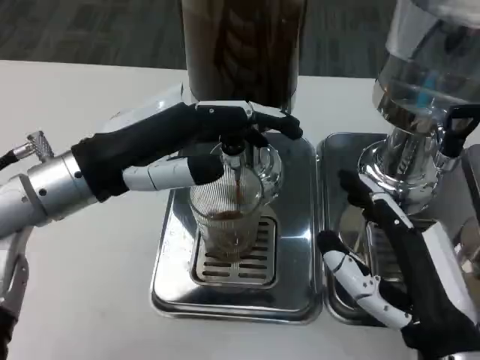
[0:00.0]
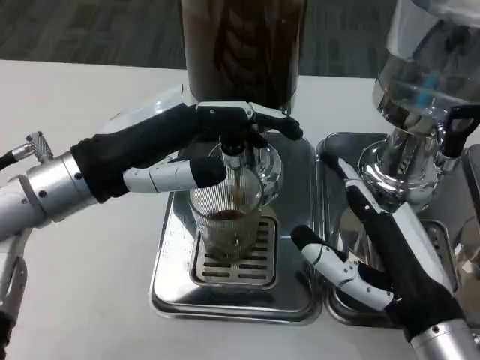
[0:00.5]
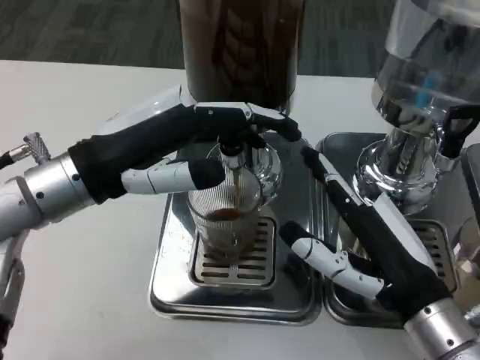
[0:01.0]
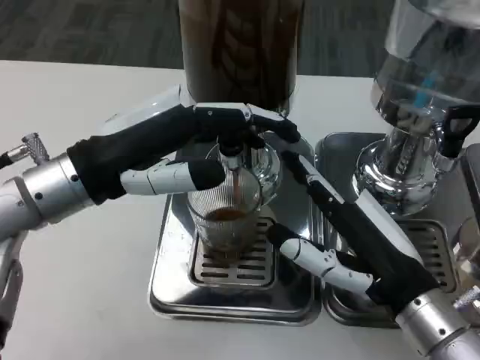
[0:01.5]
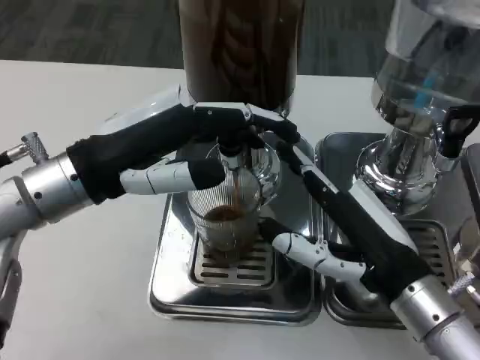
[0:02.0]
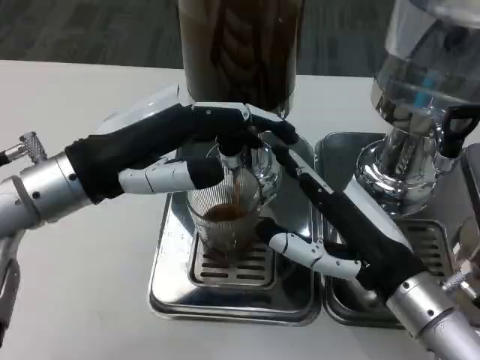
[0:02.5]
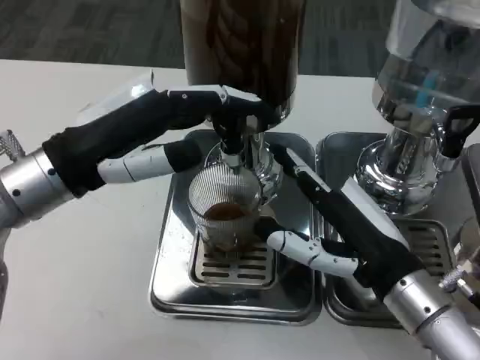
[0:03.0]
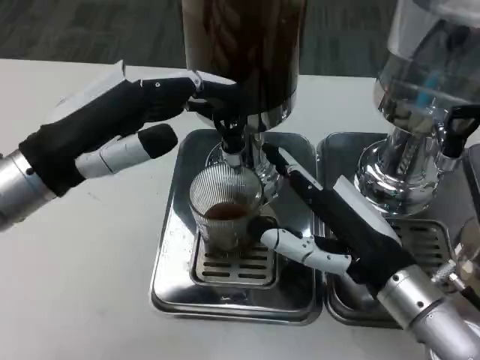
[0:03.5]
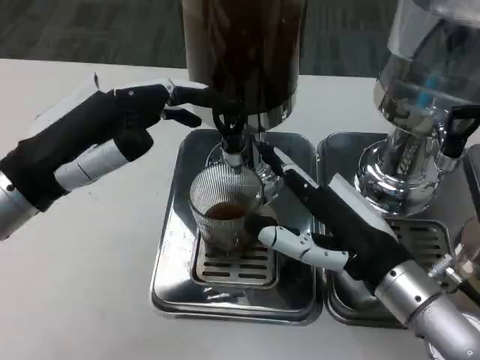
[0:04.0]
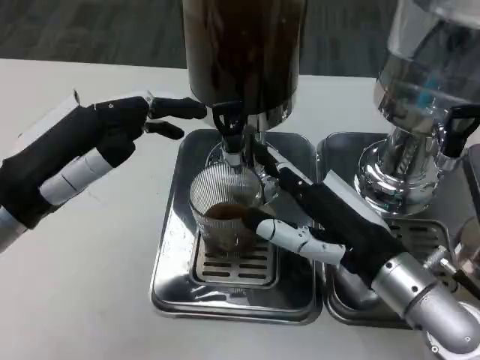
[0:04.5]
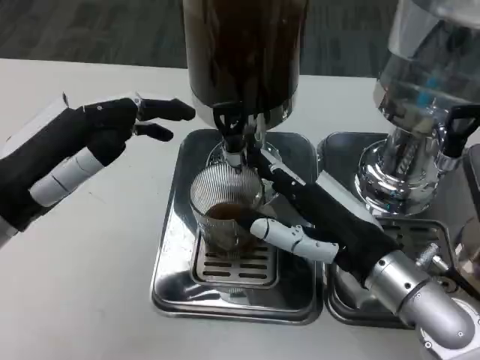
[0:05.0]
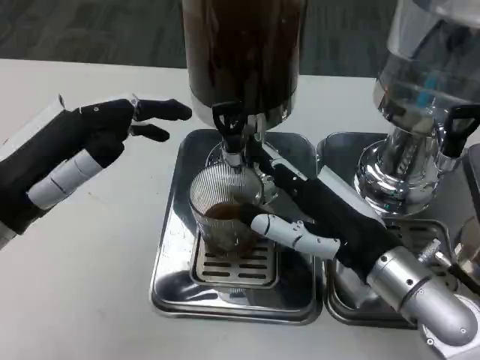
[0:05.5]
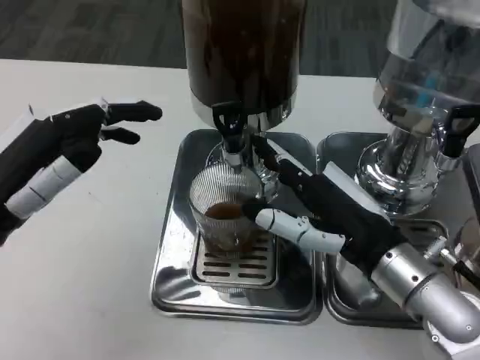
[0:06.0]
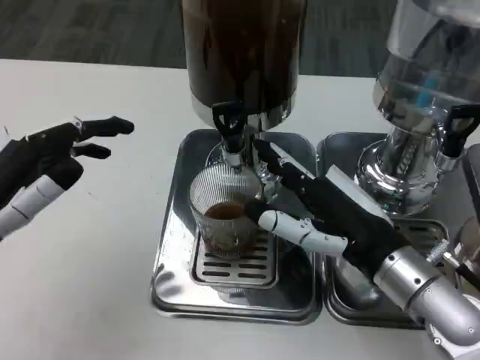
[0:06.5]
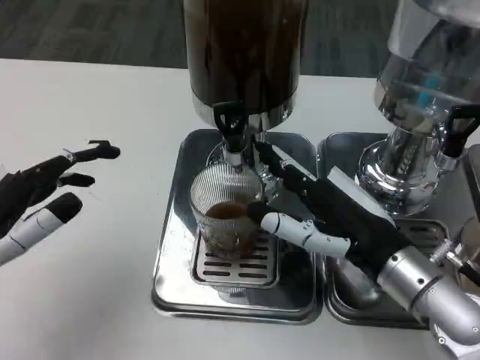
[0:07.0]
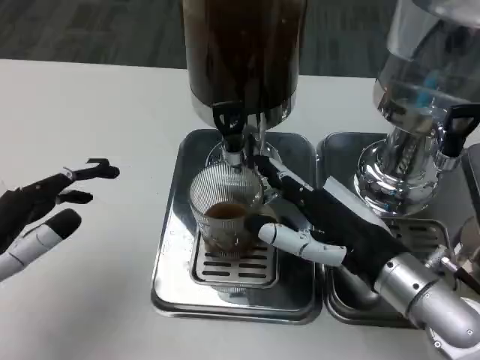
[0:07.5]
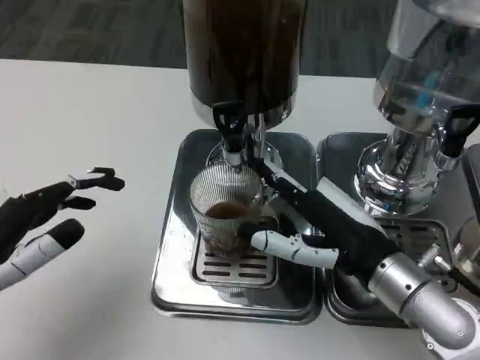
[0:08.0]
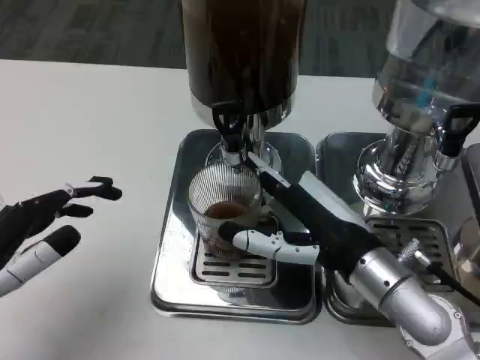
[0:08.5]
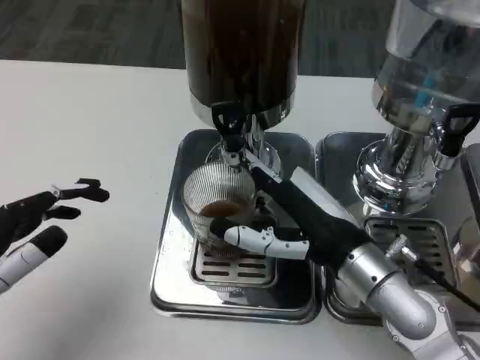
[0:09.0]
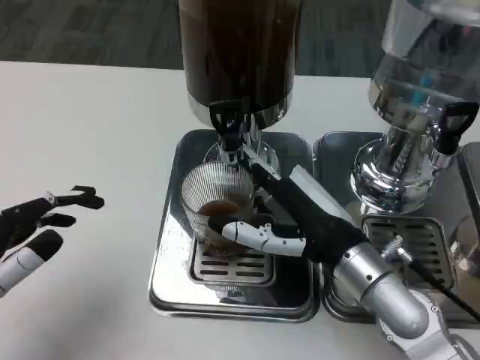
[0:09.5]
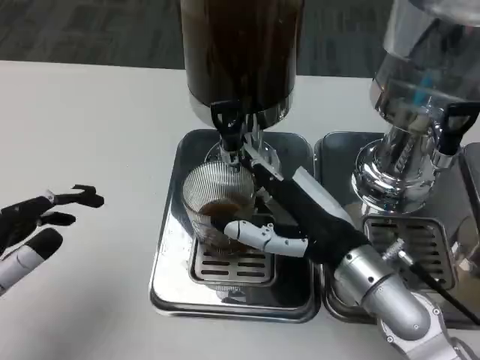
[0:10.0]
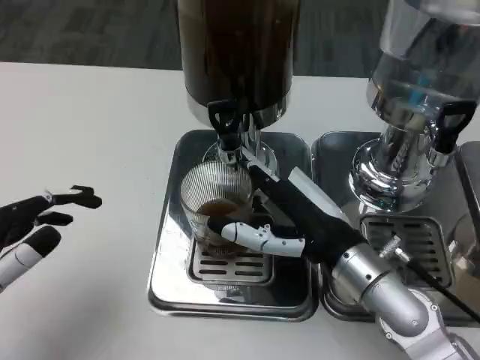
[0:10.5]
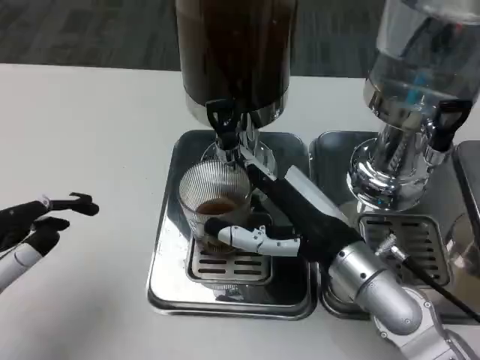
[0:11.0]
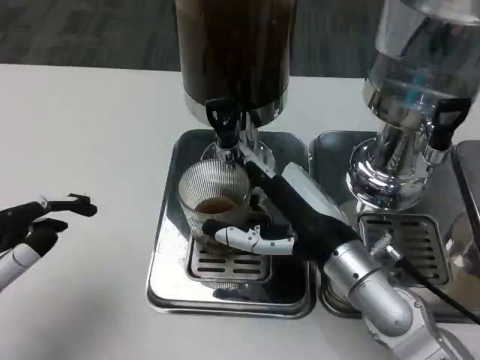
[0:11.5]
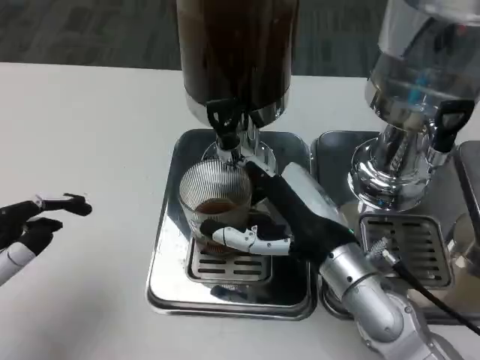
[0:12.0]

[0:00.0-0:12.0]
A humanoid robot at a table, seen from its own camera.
Task of the whole recording: Grasp the cup under the faucet to collect the drink, then remove the cup.
0:00.0 to 0:02.0: The right hand is displaced forward by approximately 5 cm.
0:04.0 to 0:06.0: The left hand ends up some 5 cm from where it was.
0:06.0 to 0:08.0: The left hand changes place by approximately 5 cm.

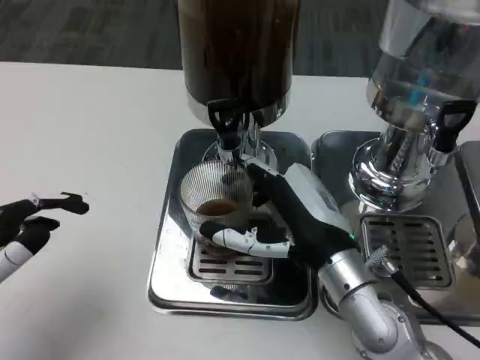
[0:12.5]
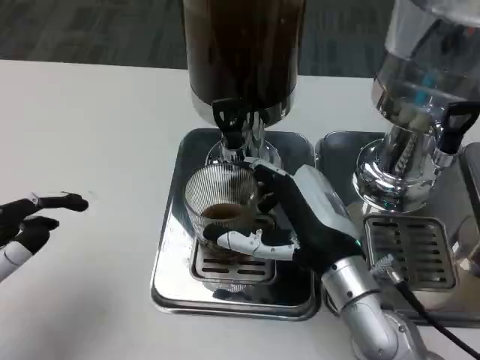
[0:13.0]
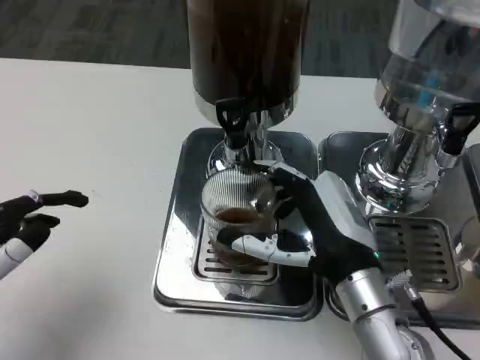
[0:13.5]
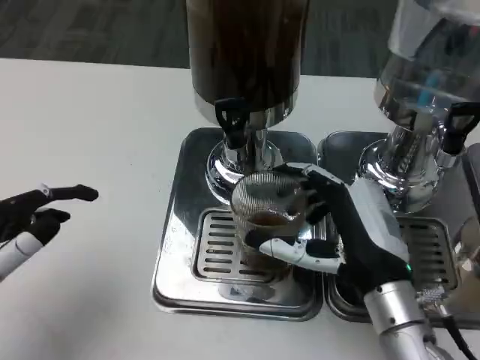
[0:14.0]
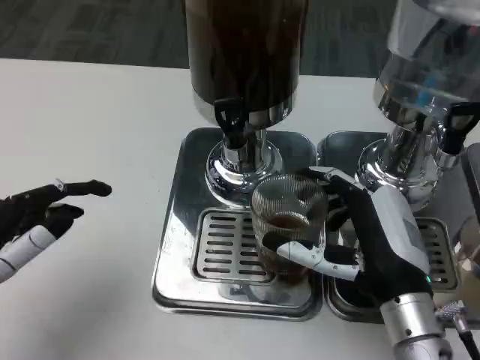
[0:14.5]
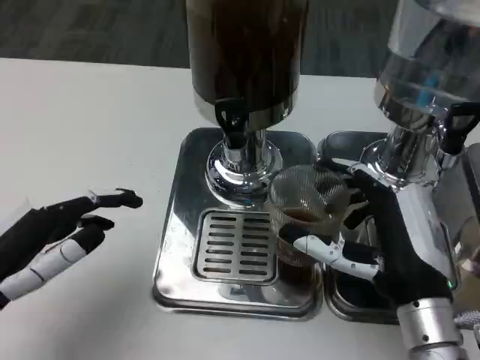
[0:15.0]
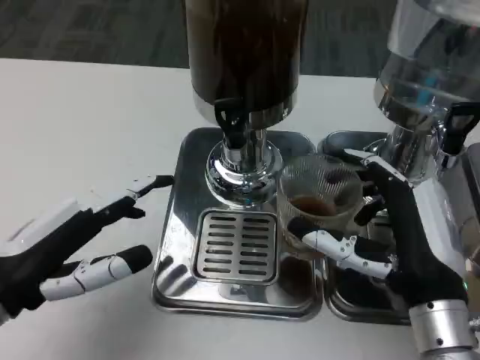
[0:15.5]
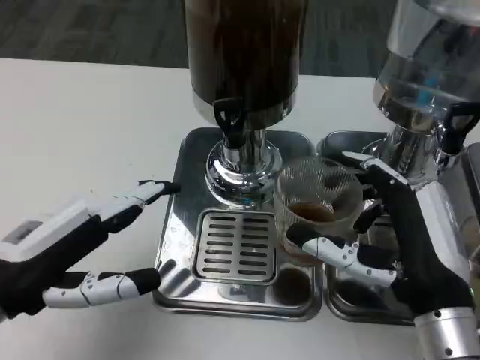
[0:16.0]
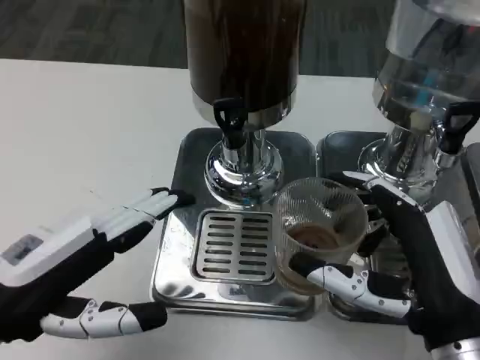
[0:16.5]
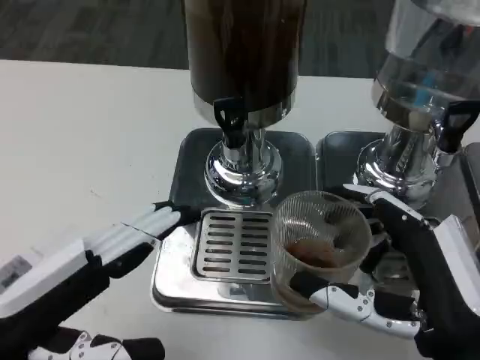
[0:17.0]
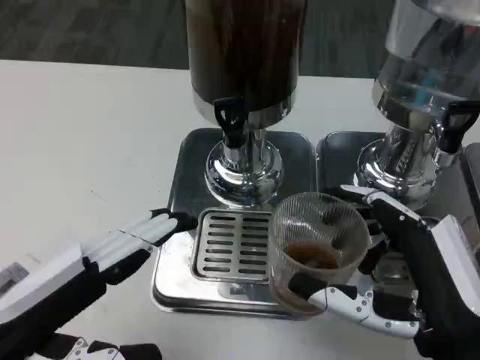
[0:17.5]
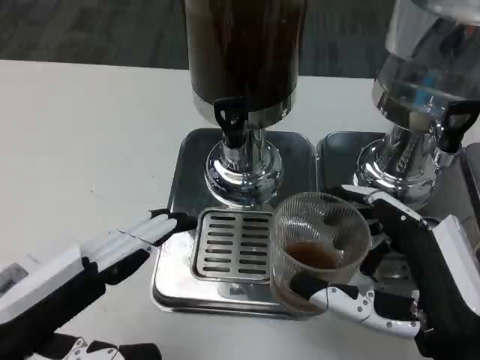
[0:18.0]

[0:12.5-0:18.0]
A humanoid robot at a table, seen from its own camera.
Task of the whole recording: Grasp the cup under the faucet to collect the drink, then remove the cup.
0:12.5 to 0:14.5: The right hand shifts by approximately 5 cm.
0:16.0 to 0:18.0: The hands both shift backward by approximately 5 cm.

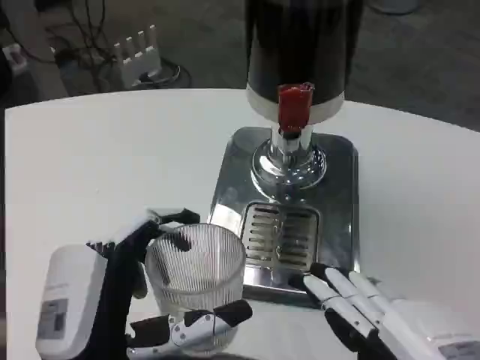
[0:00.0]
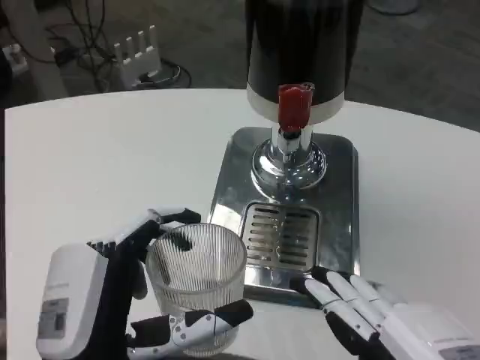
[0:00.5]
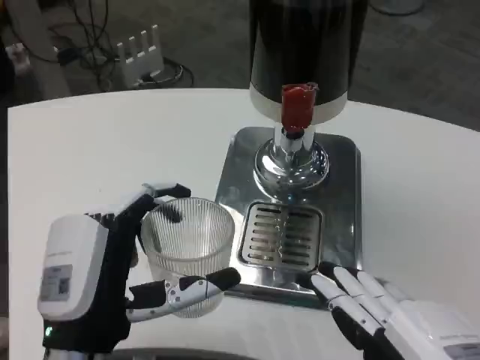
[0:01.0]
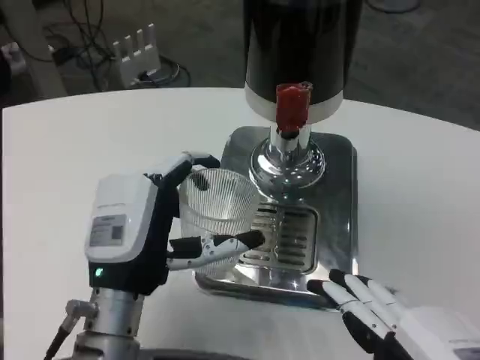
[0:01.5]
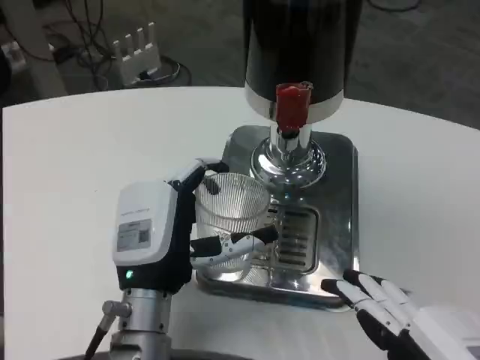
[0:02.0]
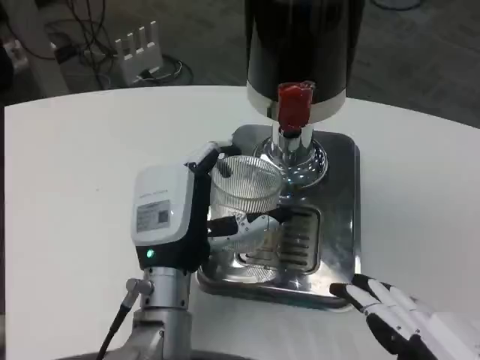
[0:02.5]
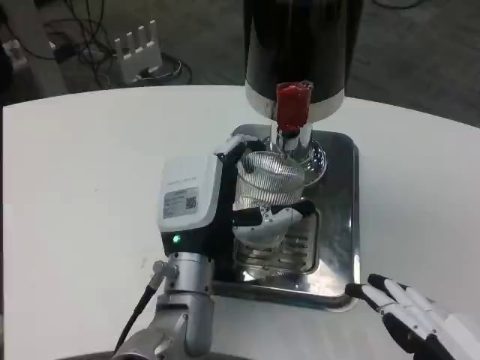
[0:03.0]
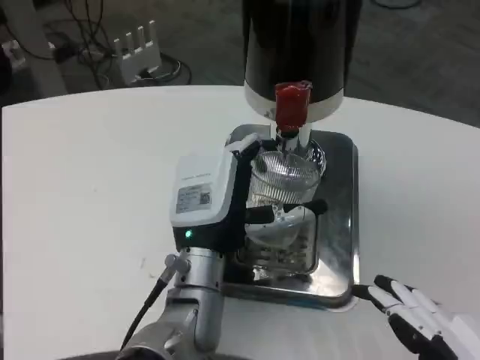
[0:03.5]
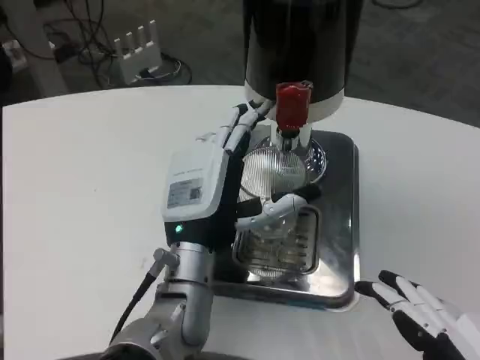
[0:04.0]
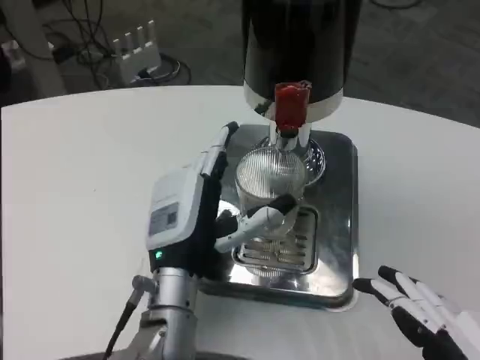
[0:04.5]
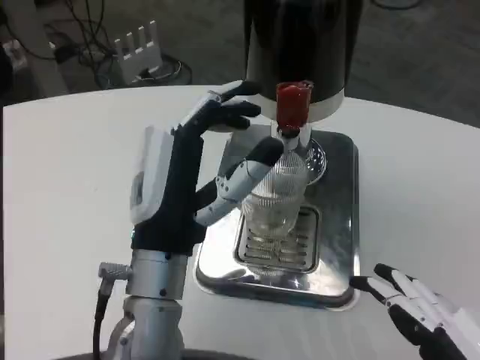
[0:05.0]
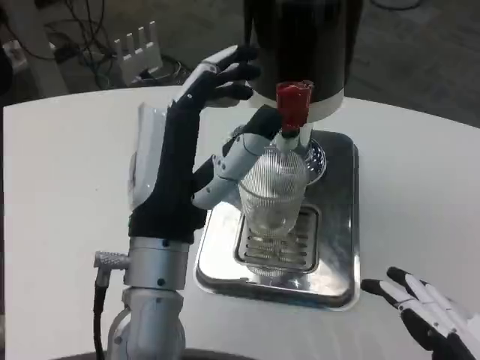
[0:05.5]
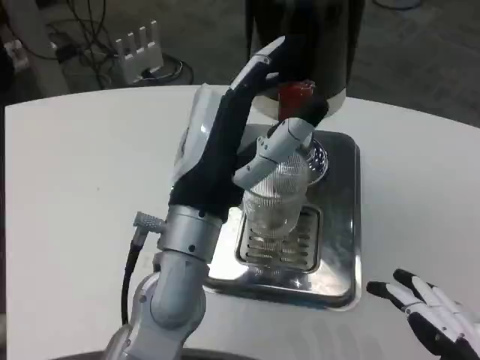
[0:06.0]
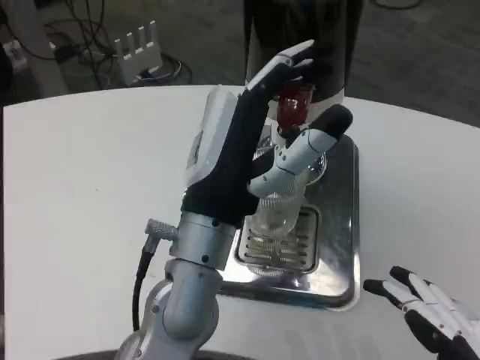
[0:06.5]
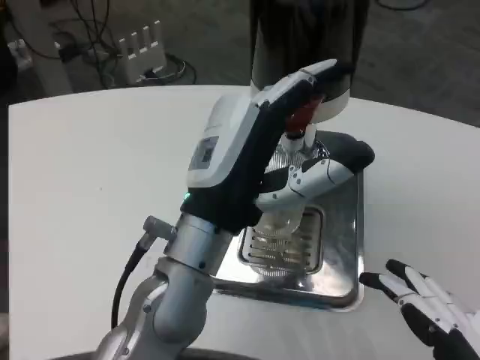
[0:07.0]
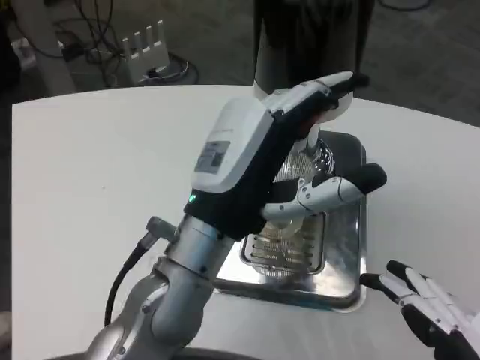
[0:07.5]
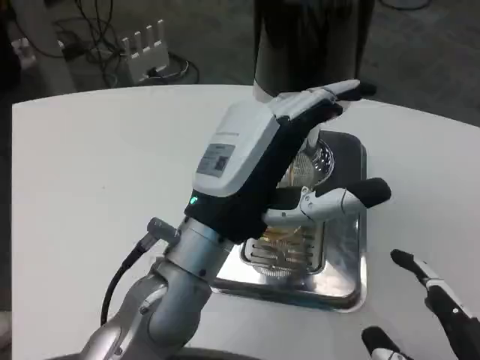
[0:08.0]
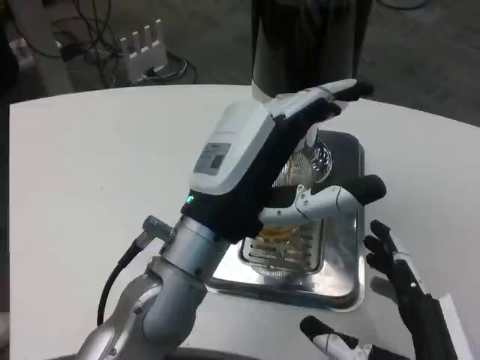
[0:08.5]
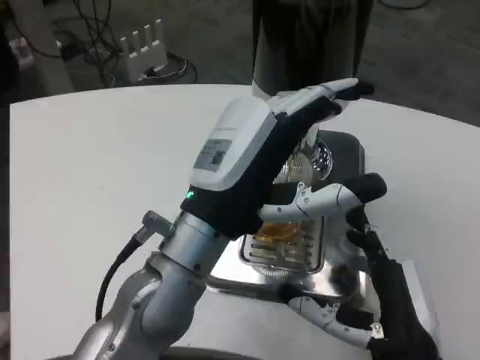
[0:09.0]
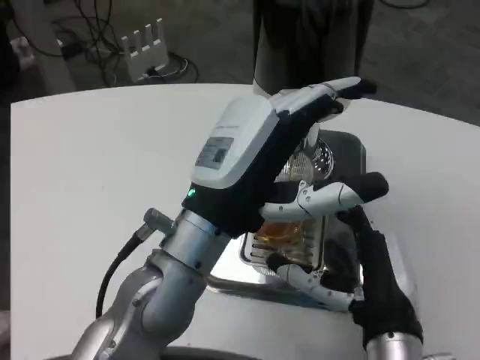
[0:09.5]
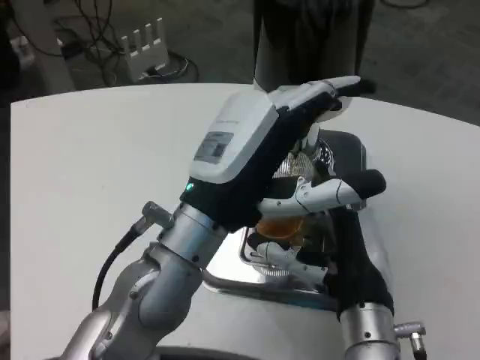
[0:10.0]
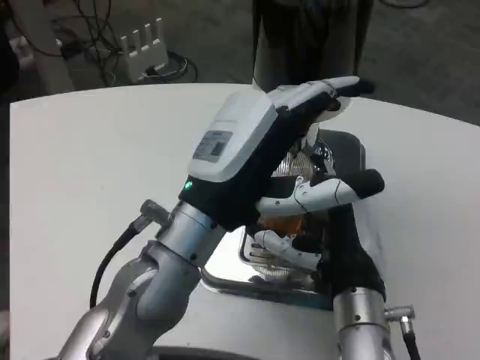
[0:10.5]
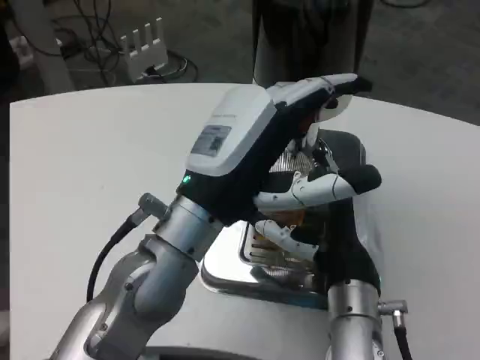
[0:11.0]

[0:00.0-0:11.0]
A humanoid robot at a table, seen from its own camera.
Task of the whole recording: Grasp the cup under the faucet to collect the drink, then remove the cup.
0:00.0 to 0:02.0: The left hand moves forward, about 10 cm.
0:02.0 to 0:03.5: The left hand changes place by roughly 5 cm.
0:03.5 to 0:05.5: The left hand is displaced upward and backward by about 10 cm.
0:07.5 to 0:09.0: The right hand moves forward, to the left and downward, about 15 cm.
0:09.0 to 0:11.0: The right hand goes approximately 10 cm forward.
